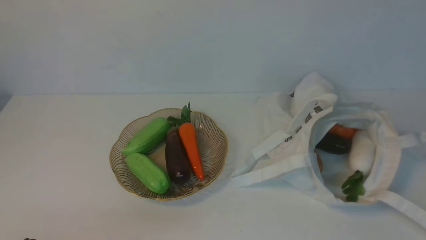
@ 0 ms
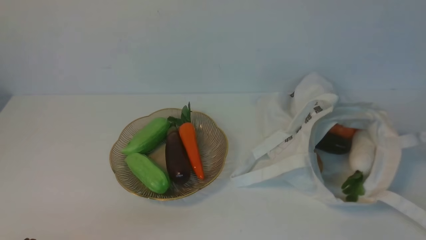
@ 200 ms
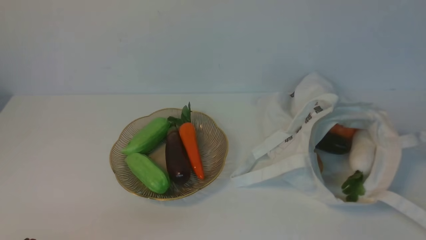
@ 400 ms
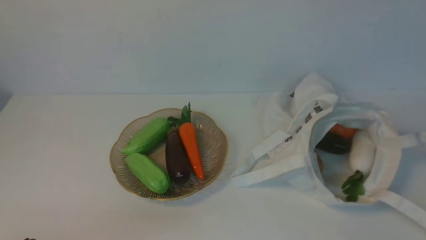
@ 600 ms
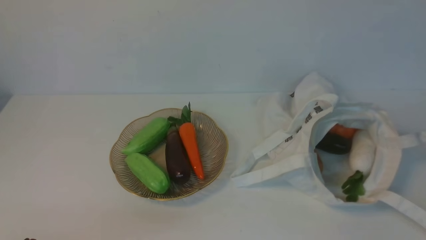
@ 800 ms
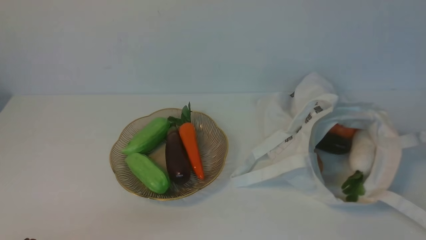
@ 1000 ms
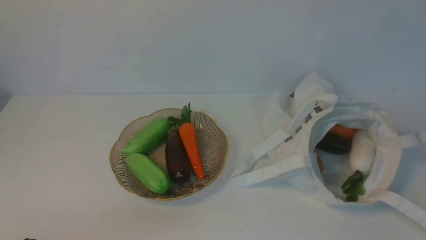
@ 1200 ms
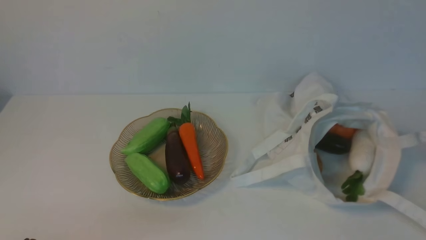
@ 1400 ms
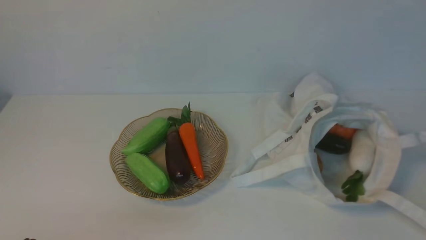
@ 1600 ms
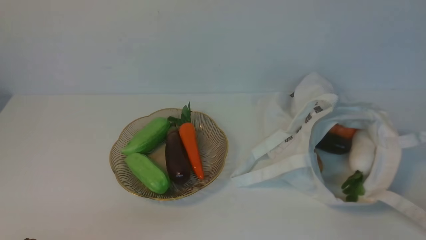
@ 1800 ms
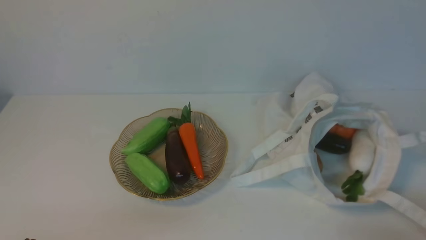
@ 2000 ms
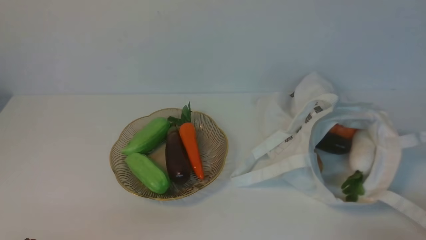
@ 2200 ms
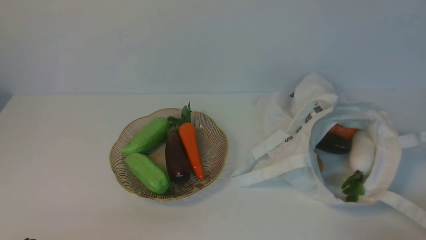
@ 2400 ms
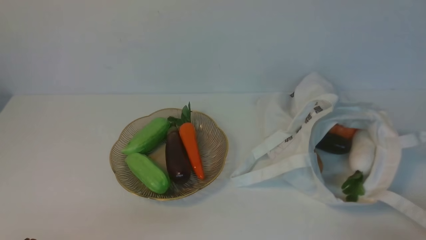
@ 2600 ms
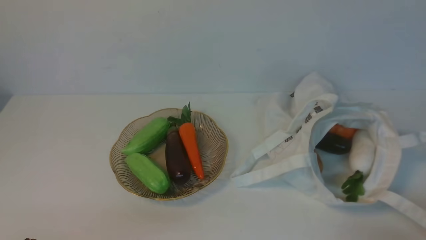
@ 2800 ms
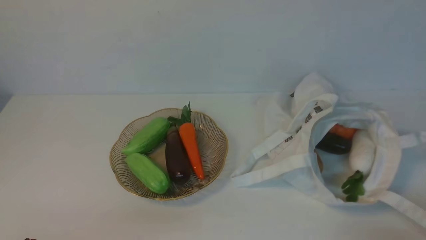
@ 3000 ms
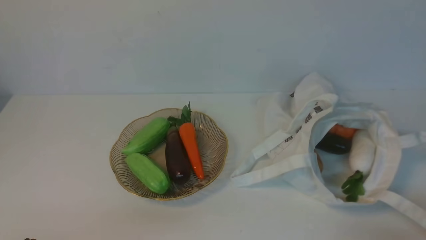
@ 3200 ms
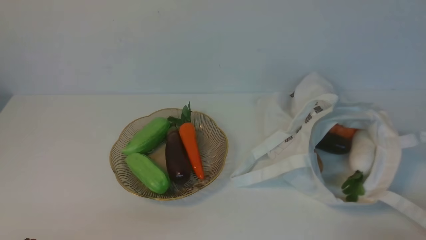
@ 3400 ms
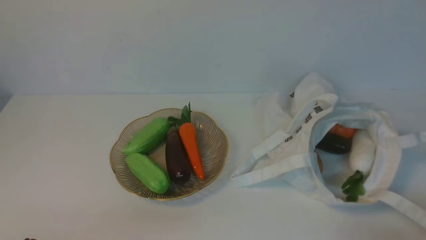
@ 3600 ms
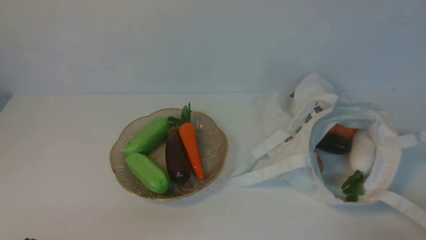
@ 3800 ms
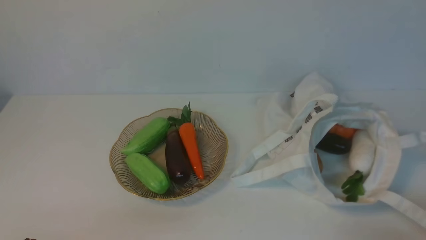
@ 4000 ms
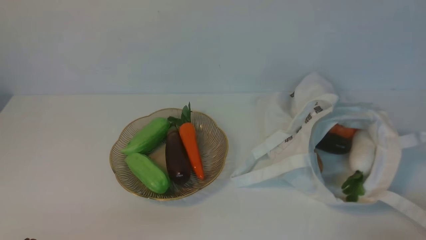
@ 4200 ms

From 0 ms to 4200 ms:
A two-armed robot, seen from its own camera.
Task of the whole recording: take vegetables from cloth bag on white table place on plate.
From 2800 ms to 4200 ms: Both grippers stay about where they are.
